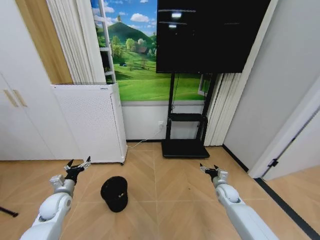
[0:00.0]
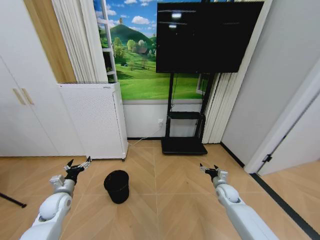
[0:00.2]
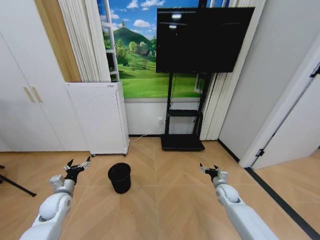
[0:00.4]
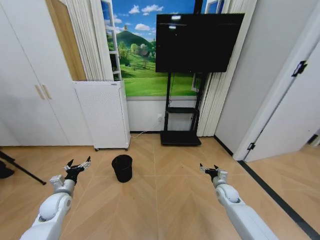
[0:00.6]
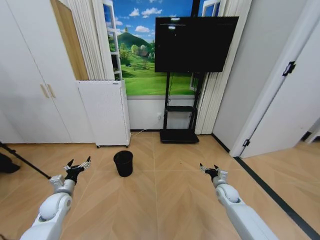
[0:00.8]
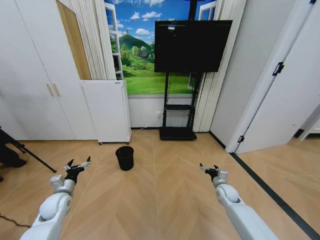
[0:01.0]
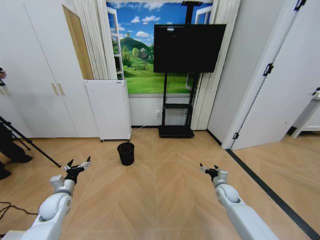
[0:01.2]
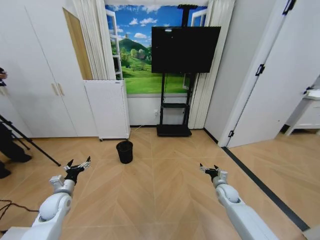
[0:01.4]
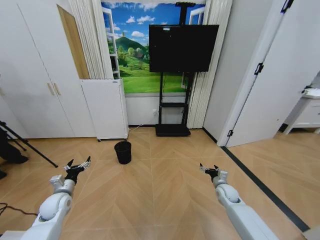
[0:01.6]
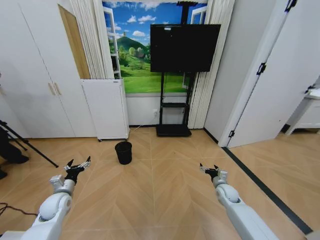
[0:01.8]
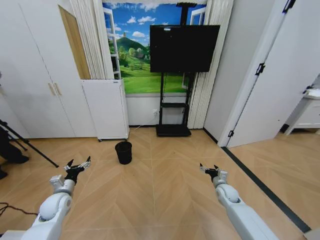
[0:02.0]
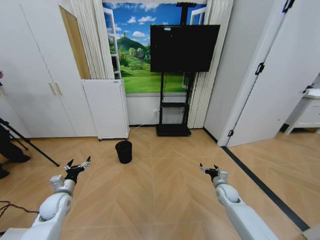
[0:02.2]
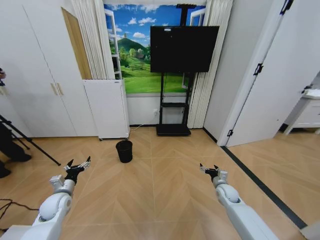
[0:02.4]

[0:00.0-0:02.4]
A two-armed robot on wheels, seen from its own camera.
Task of the whole recording: Pick up the trash bin and place the garbage on the floor into it.
0:01.2 to 0:02.4: Both grippers stay about where they are.

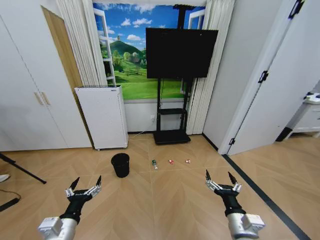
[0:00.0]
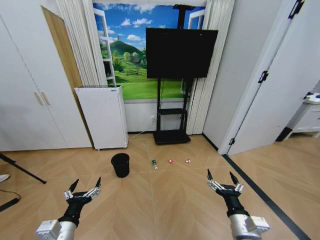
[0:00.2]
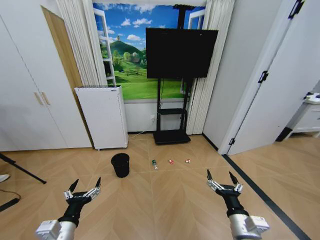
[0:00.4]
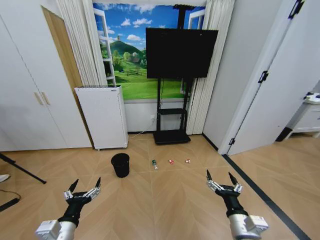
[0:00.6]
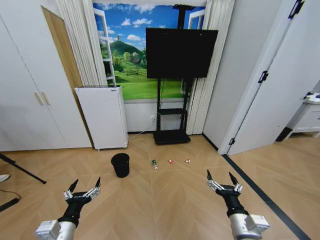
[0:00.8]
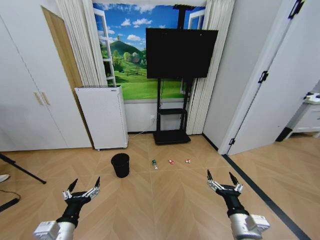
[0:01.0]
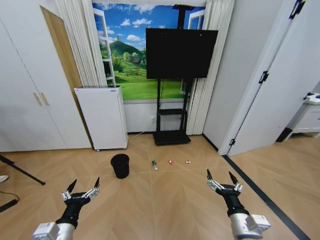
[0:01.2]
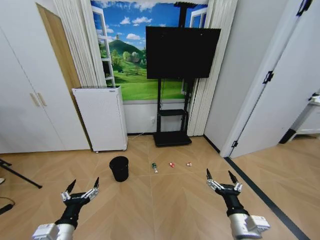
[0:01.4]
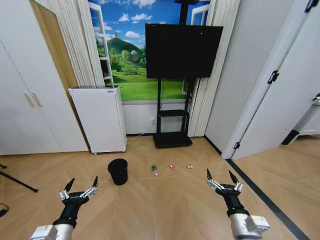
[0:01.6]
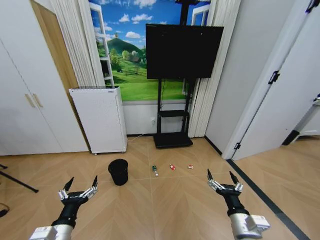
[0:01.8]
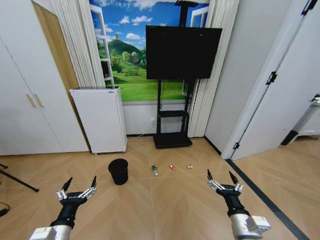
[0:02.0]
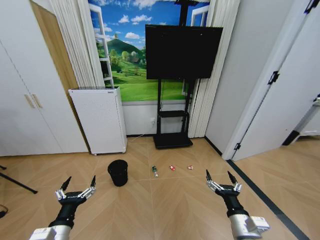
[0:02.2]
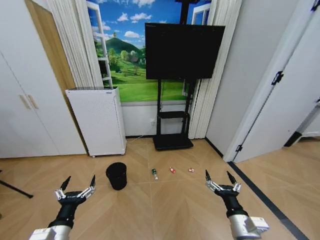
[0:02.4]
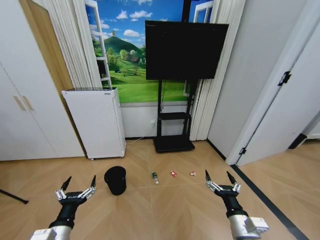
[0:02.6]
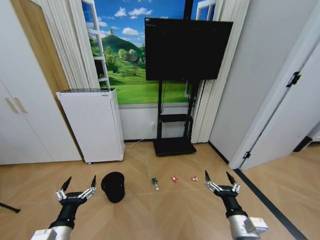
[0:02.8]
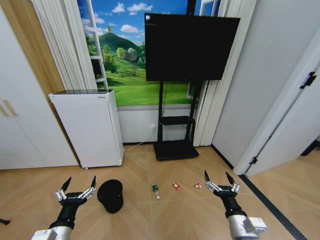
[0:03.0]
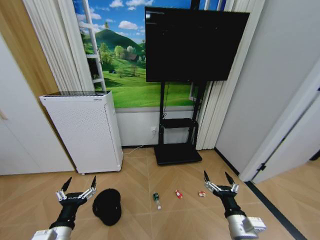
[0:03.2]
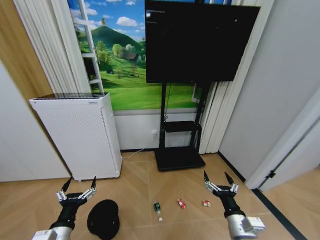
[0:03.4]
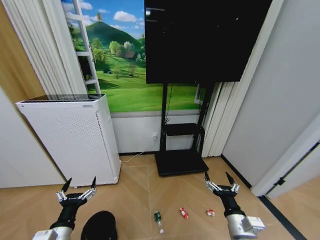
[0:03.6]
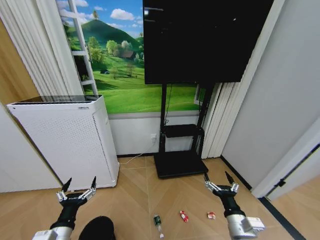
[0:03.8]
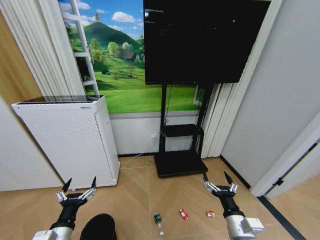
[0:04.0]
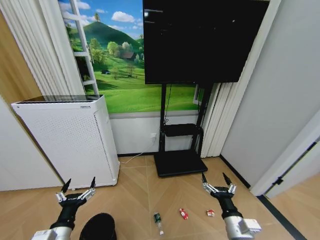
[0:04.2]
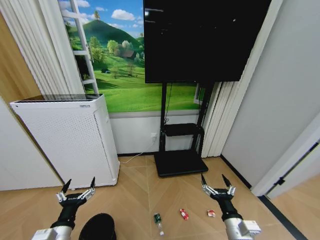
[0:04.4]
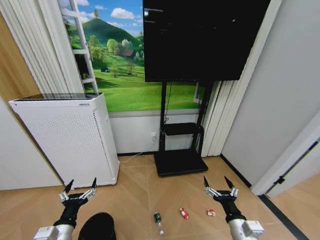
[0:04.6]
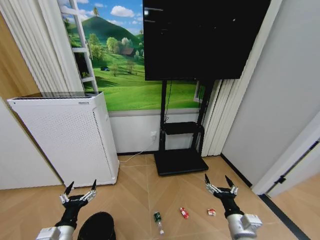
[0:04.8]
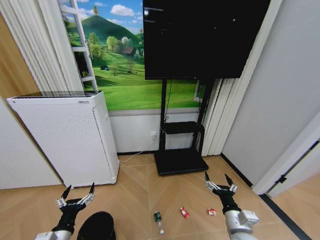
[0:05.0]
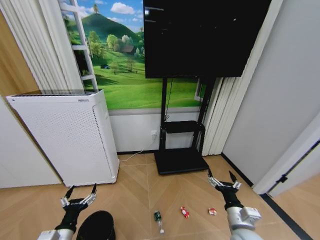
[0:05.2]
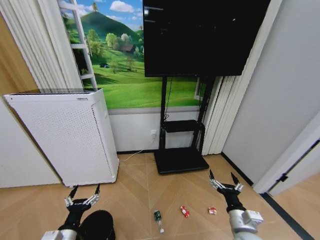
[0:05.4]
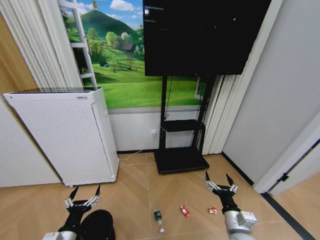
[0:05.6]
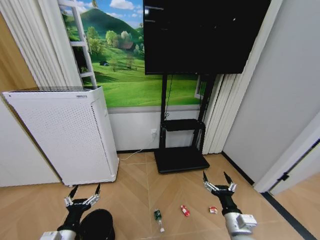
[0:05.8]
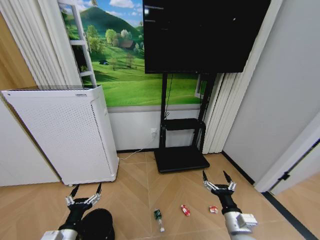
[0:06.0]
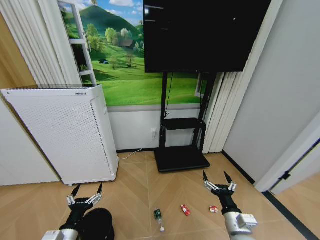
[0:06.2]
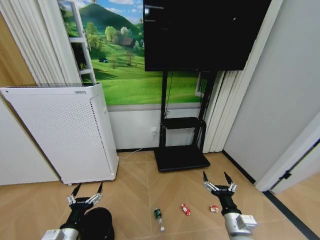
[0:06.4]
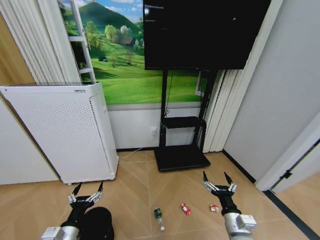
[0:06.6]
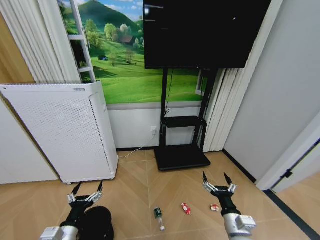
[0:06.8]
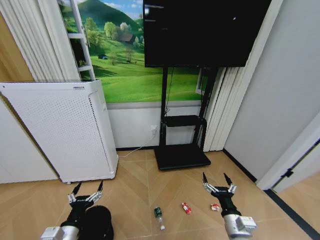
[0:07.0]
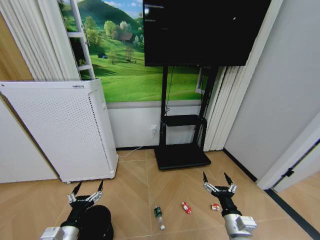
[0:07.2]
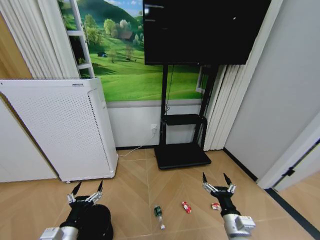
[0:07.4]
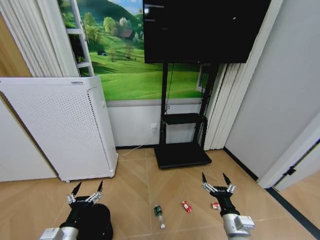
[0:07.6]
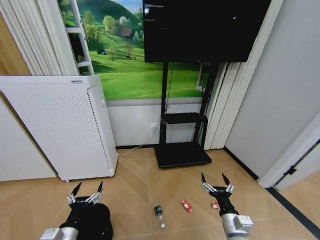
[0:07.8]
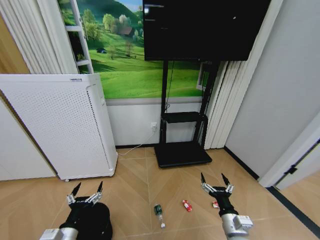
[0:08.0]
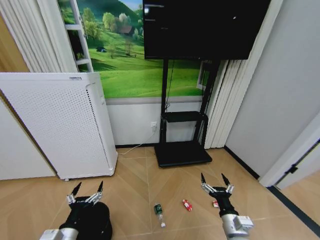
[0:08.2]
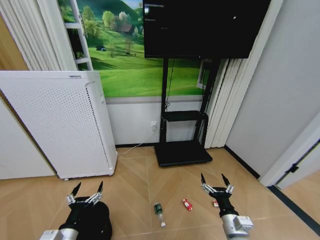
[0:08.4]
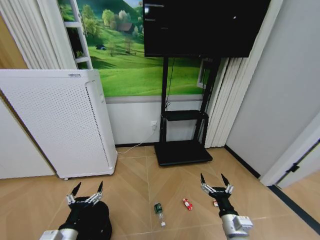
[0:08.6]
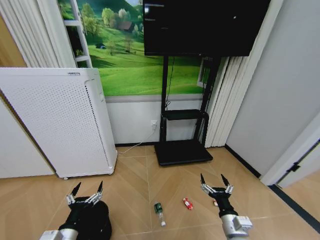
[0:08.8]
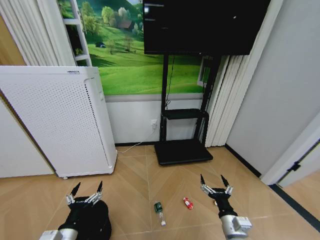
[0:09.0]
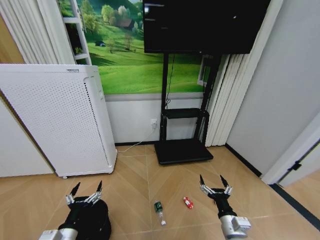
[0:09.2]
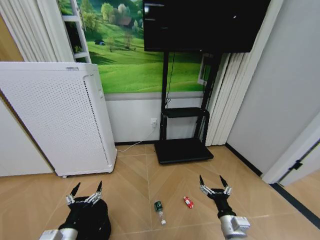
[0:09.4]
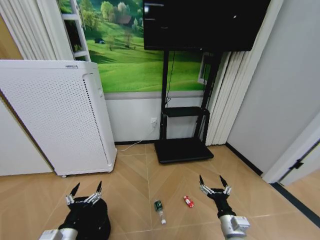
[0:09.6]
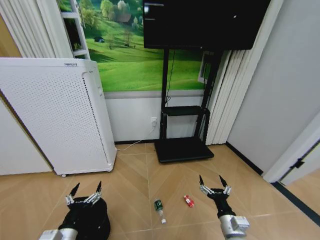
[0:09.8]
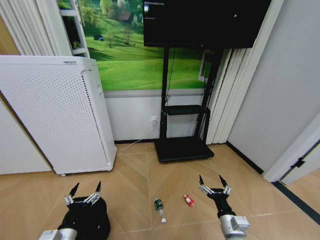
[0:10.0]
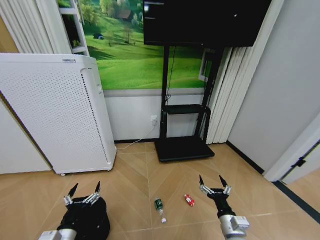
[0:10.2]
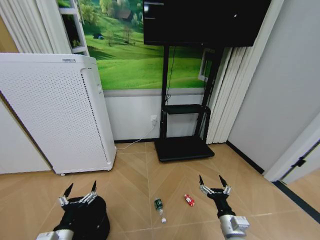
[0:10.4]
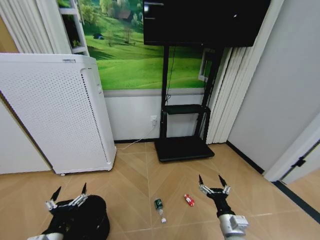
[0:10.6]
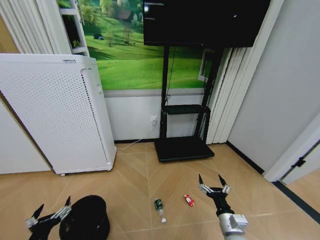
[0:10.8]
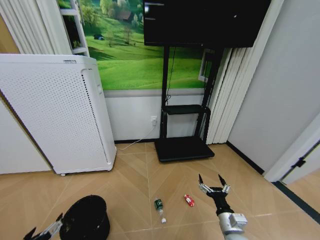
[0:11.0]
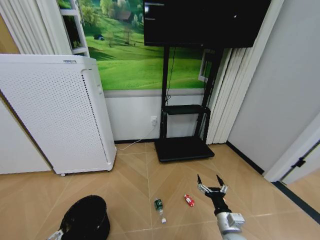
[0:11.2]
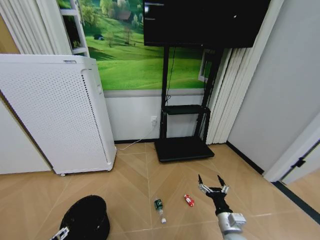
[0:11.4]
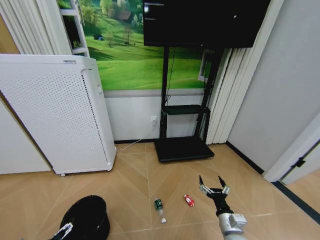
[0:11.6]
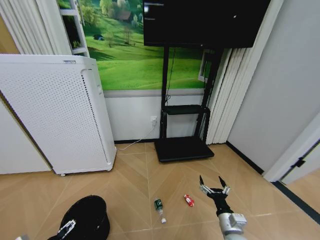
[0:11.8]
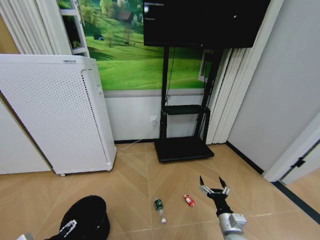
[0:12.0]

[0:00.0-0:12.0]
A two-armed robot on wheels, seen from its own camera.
Task of the whole recording: Pick up the trash bin and place the garbage on the floor into it.
0:04.4 to 0:06.0: The grippers stay close to where they were, moving slightly.
0:06.0 to 0:07.6: Neither gripper changes place.
0:07.6 to 0:09.0: Both grippers stay about where they are.
0:09.0 to 0:10.4: The grippers move only a little.
0:10.4 to 0:12.0: The left gripper heads to the left, covering about 10 cm.

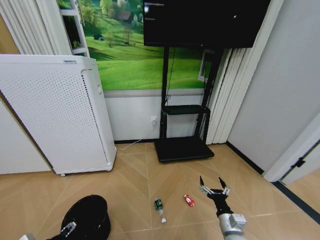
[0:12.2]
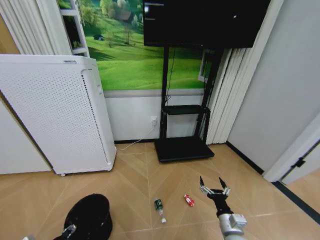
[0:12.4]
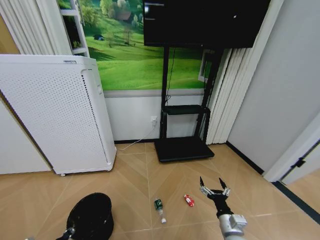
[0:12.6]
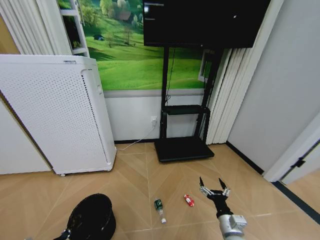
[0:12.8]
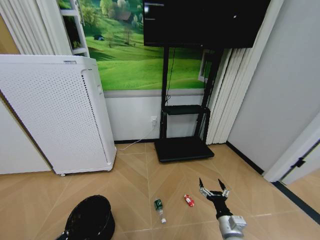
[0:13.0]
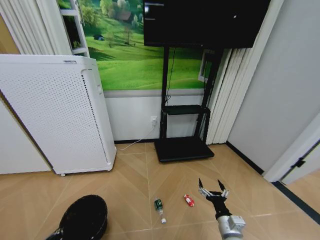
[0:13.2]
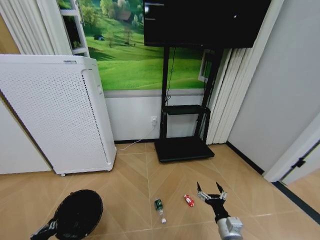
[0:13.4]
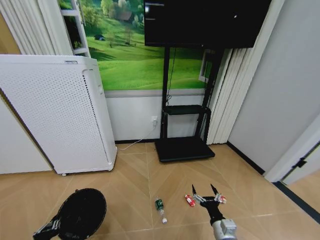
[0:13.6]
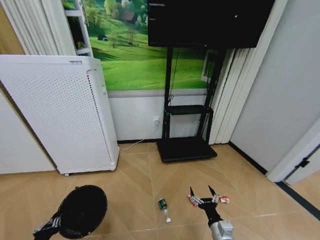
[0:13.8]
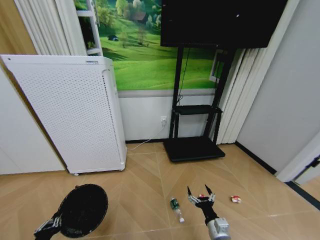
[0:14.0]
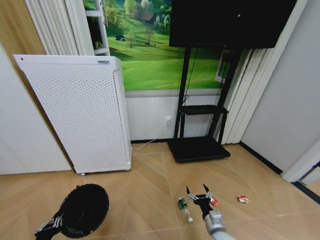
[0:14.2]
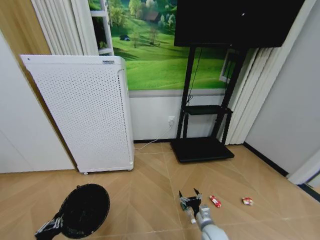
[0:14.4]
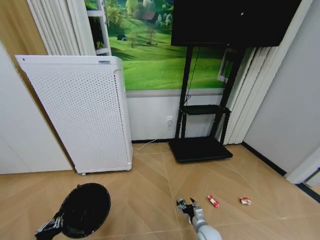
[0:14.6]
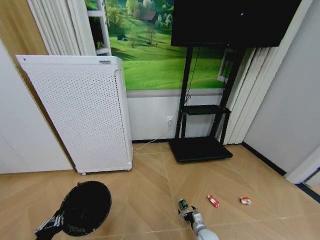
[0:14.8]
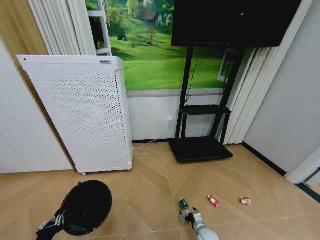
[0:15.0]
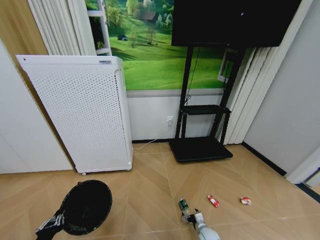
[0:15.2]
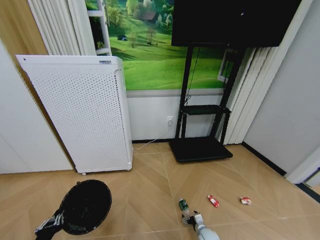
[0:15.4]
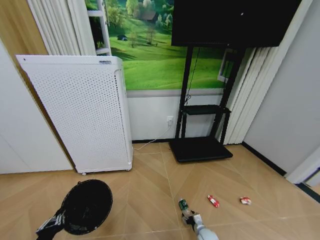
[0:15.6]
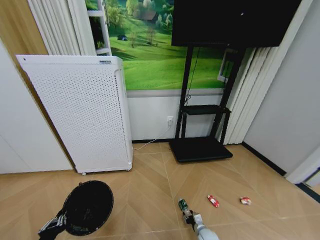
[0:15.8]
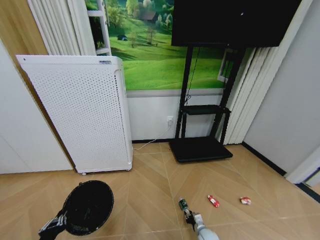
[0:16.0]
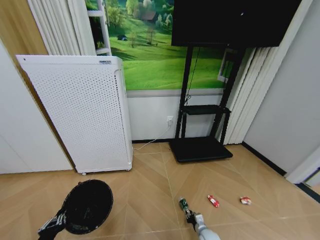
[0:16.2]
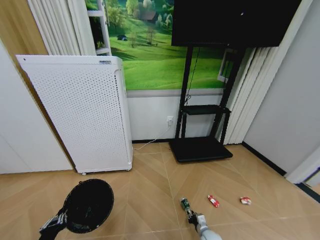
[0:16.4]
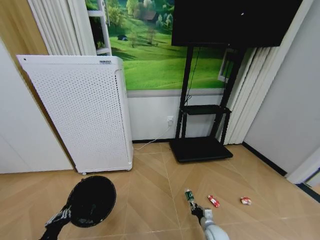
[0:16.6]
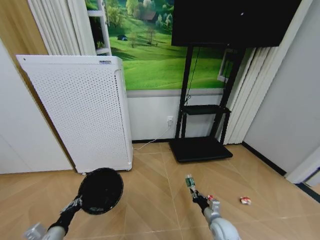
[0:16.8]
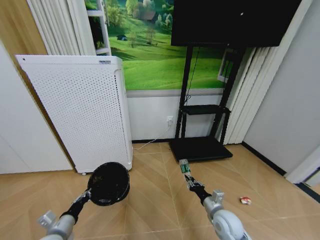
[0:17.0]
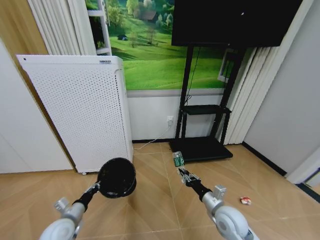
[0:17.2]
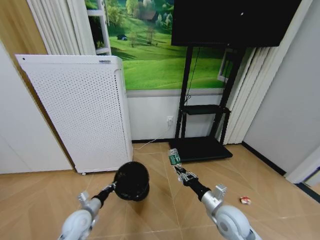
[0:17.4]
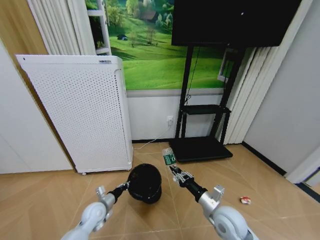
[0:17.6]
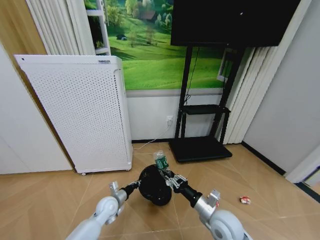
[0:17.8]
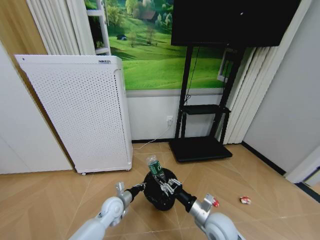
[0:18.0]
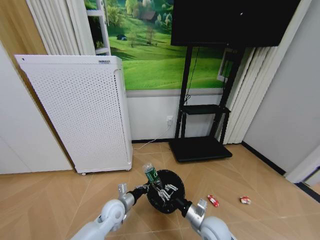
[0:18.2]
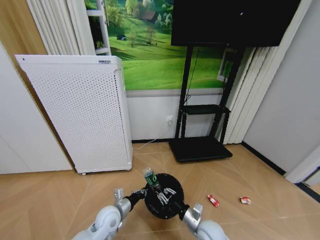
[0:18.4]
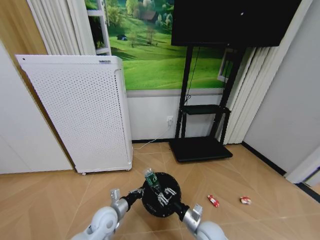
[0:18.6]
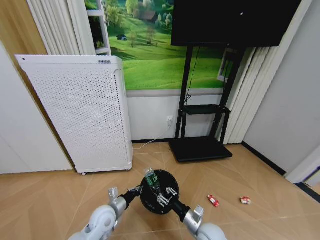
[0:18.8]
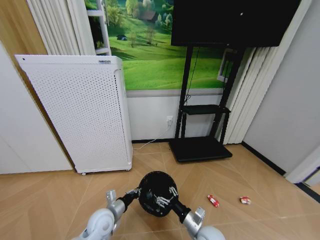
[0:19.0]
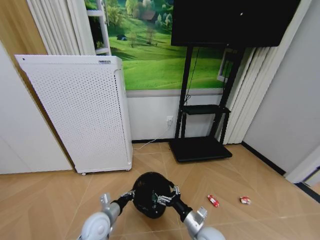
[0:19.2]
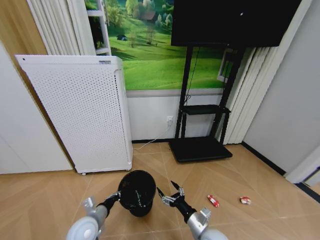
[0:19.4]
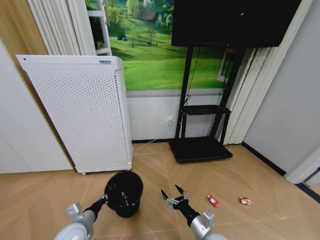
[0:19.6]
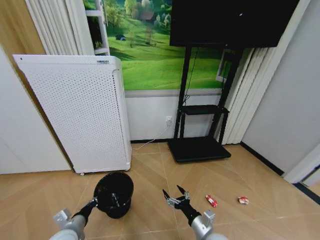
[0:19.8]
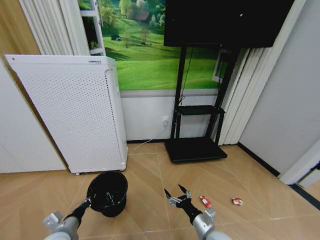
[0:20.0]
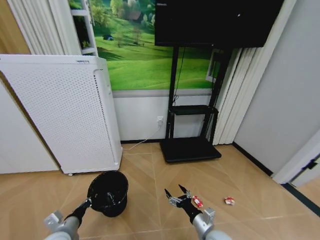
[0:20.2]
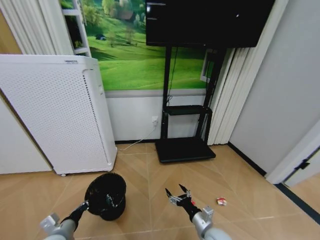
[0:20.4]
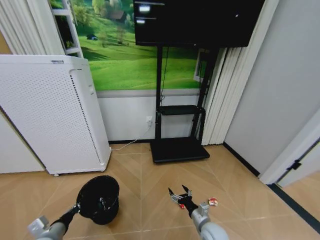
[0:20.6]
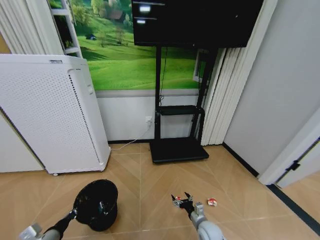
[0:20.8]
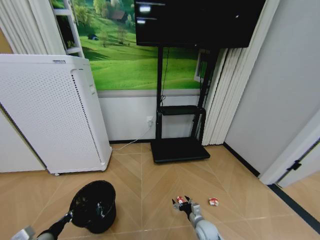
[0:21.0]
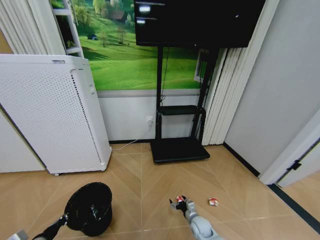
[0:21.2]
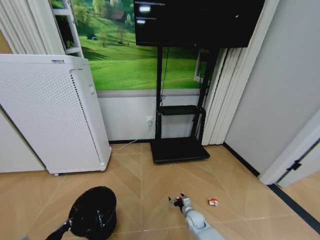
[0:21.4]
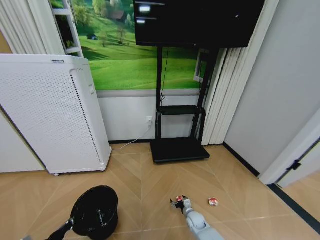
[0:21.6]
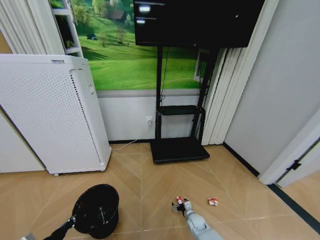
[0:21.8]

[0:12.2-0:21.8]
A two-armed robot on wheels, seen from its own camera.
Task of the whole recording: Pick up the trash bin and place the garbage on the floor into it.
0:12.2 to 0:13.8: The left gripper goes roughly 5 cm backward, and closes its fingers.
0:13.8 to 0:15.4: The right gripper heads downward and forward, covering about 20 cm.
0:15.4 to 0:17.0: The right gripper moves upward, some 25 cm, and closes up; the left gripper travels forward by about 10 cm.
0:17.0 to 0:18.6: The left gripper goes approximately 20 cm to the right and forward. Meanwhile the right gripper is displaced to the left by some 5 cm, and moves approximately 5 cm upward and comes back.
0:18.6 to 0:20.2: The right gripper opens up. Meanwhile the left gripper goes approximately 15 cm to the left and backward.
0:20.2 to 0:21.8: The right gripper heads downward and forward, covering some 25 cm; the left gripper heads backward, covering roughly 5 cm.
